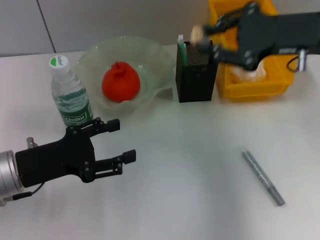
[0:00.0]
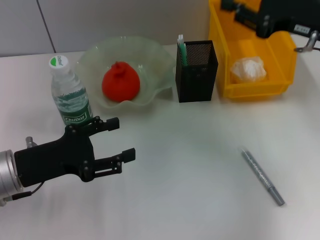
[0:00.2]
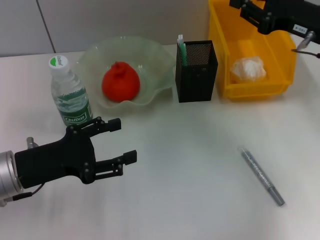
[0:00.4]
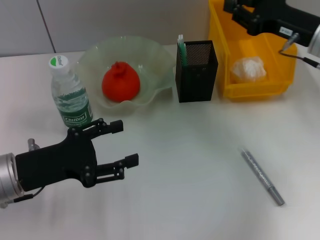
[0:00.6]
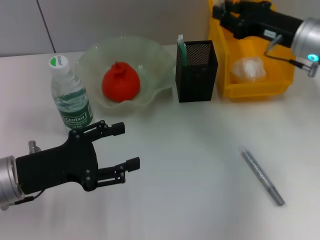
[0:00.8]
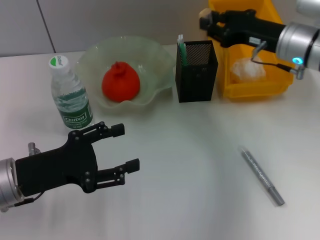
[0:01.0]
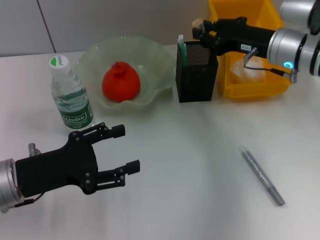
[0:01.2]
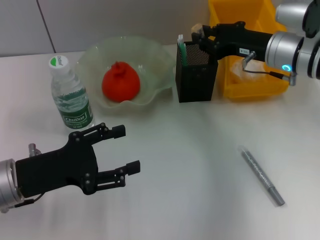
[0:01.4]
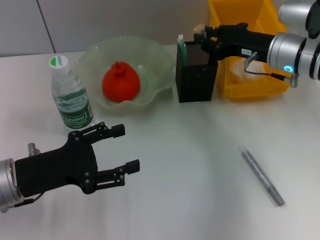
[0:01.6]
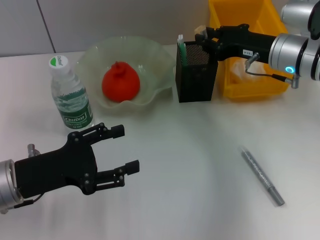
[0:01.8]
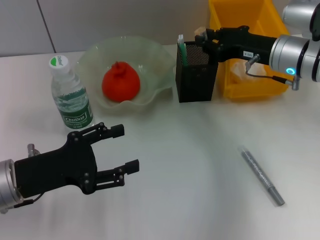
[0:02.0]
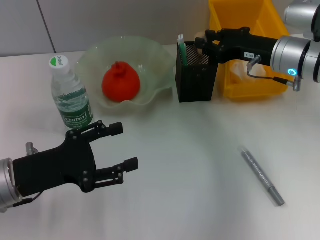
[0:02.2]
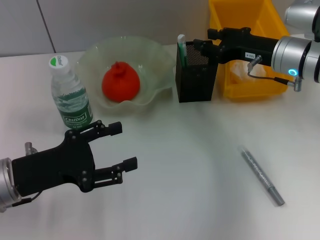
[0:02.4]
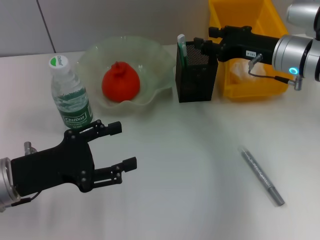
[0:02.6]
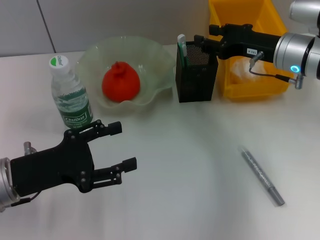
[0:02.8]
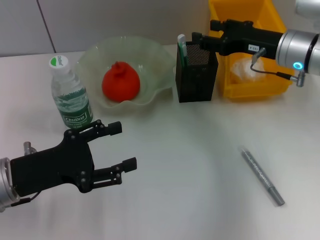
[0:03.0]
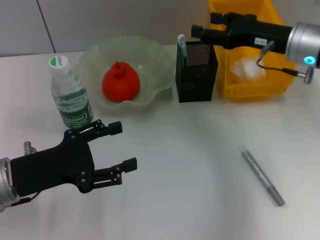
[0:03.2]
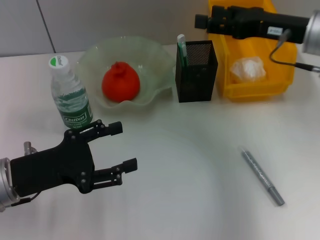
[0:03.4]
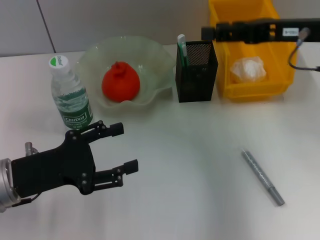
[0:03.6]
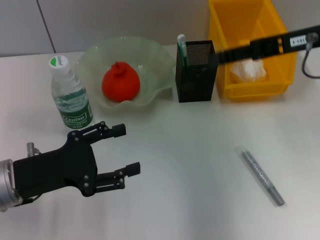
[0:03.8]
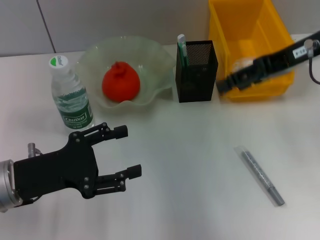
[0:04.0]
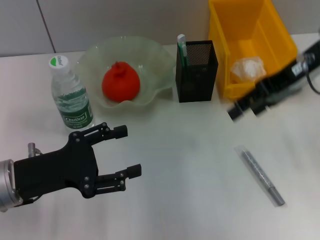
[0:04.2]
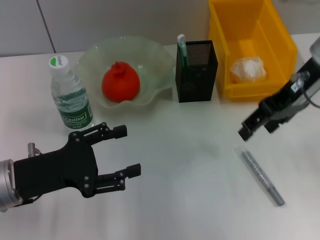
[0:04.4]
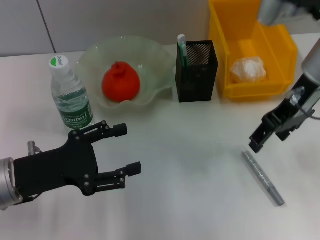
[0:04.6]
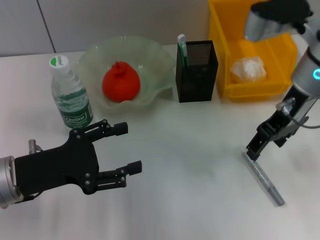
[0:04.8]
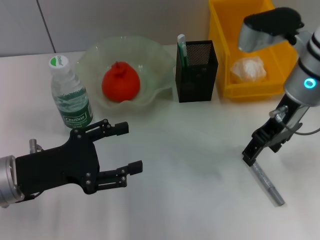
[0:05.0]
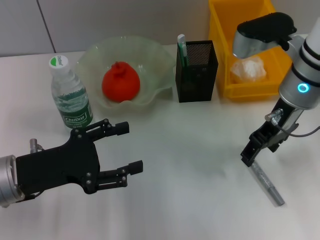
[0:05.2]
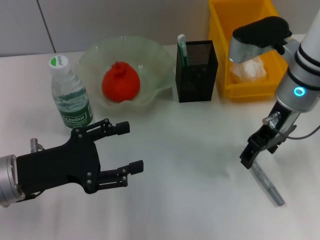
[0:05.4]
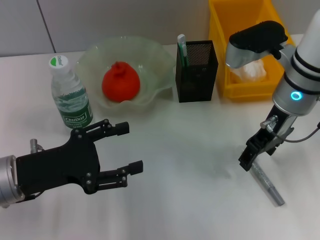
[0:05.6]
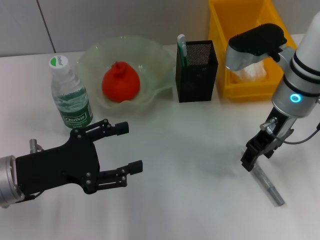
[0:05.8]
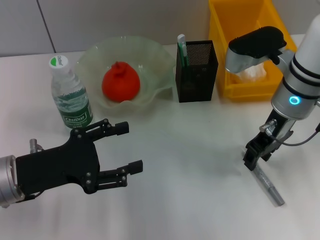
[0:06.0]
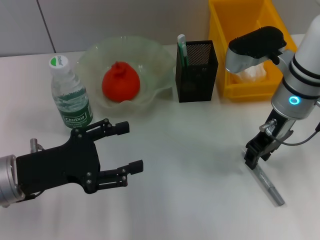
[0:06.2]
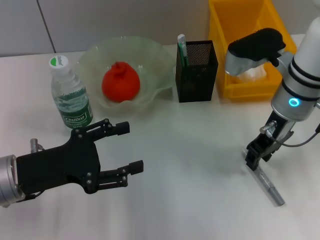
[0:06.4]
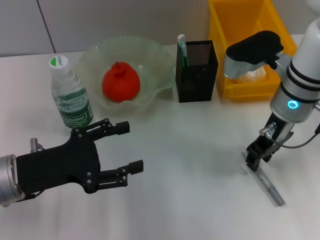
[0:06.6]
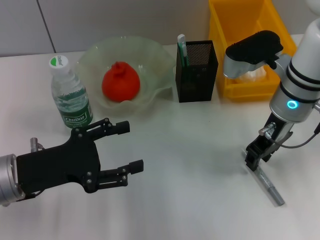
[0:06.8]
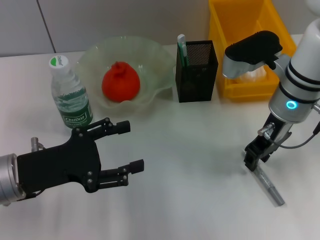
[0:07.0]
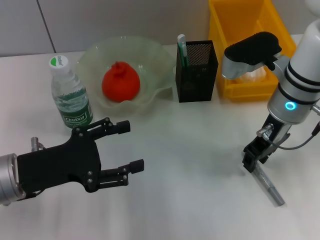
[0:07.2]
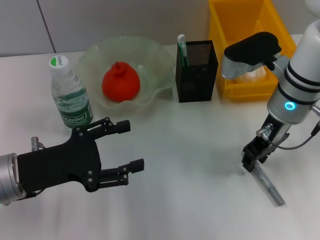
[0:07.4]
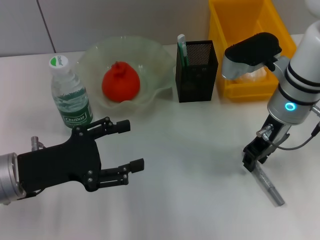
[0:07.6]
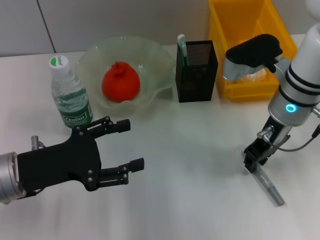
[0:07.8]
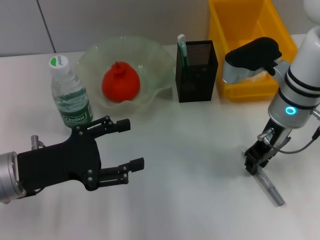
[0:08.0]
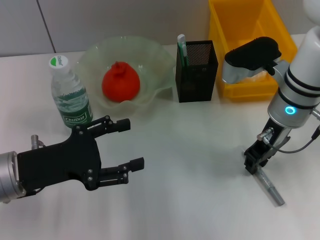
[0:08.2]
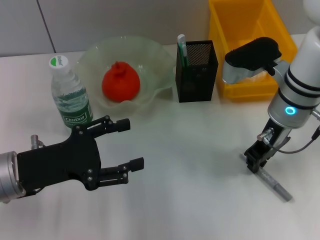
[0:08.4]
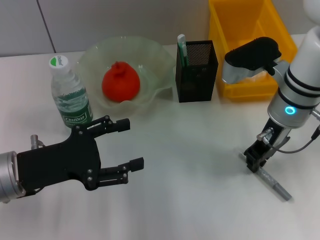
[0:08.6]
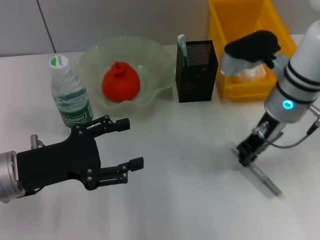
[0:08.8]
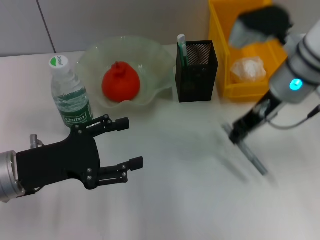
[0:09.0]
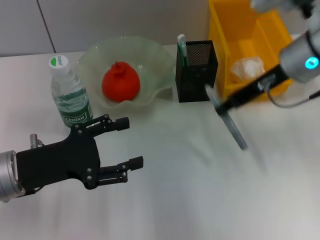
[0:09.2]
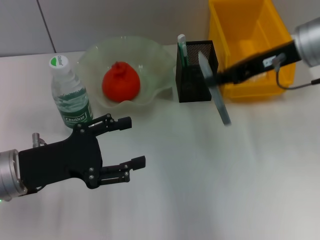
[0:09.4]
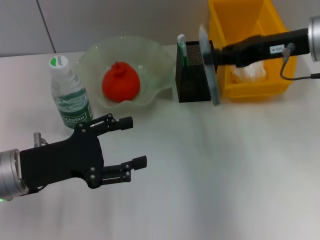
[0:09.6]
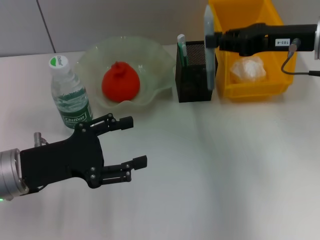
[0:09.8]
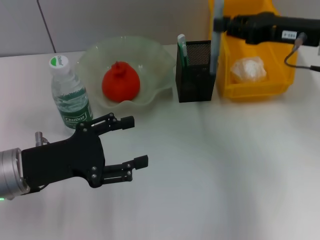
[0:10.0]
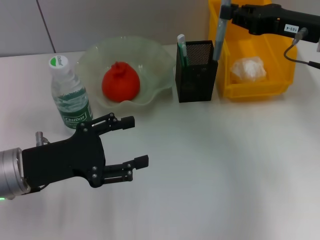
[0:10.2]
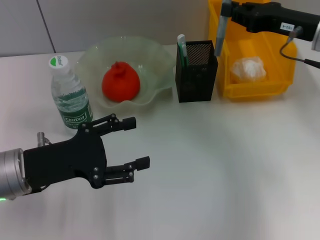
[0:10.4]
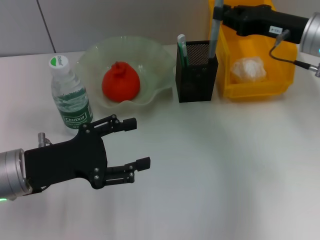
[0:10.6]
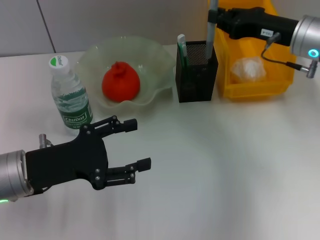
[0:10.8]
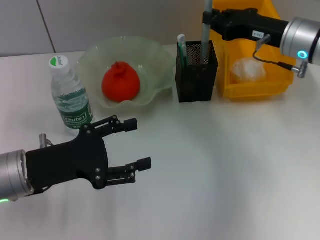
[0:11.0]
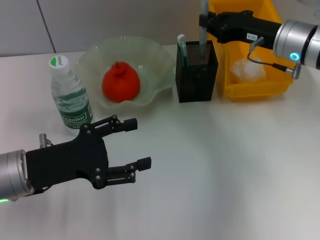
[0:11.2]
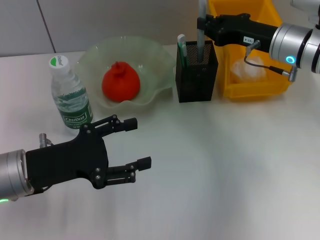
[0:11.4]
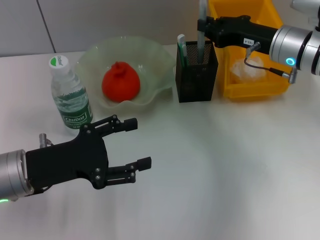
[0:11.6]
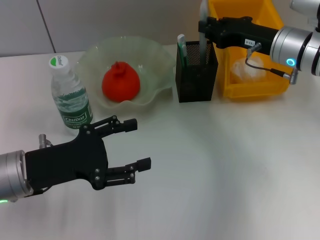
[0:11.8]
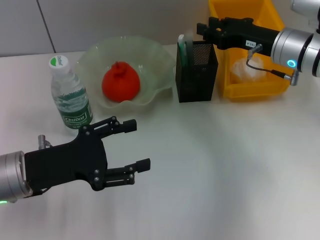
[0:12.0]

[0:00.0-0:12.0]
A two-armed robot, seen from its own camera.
Step, 0:00.0 to 0:02.8: Put the eraser into the pen holder with the right hand.
Step, 0:03.0 to 0:08.4: Grab the gray glue with the right hand.
0:00.0 to 0:01.6: The right gripper heads downward and forward, covering approximately 10 cm.
0:01.6 to 0:03.0: The right gripper opens its fingers.
0:03.0 to 0:04.4: The right gripper is displaced upward by roughly 10 cm.
0:04.4 to 0:06.0: The right gripper shifts approximately 10 cm downward.
0:06.0 to 0:07.6: The right gripper closes.
0:07.6 to 0:09.0: There are only small adjustments of the grippers.
0:09.0 to 0:10.4: The right gripper travels to the right by about 10 cm.
0:10.4 to 0:12.0: The right gripper moves some 5 cm.

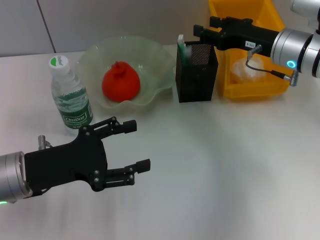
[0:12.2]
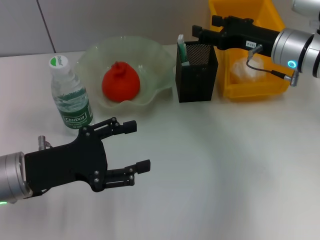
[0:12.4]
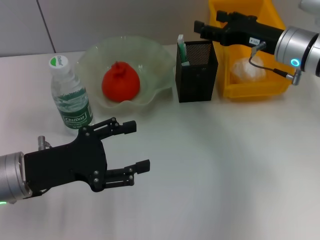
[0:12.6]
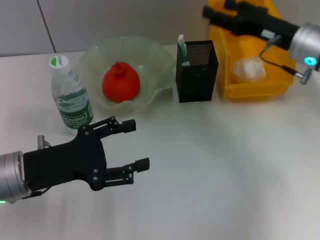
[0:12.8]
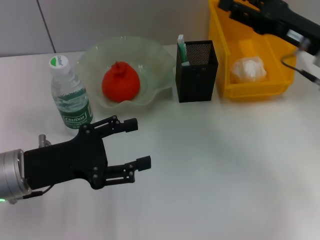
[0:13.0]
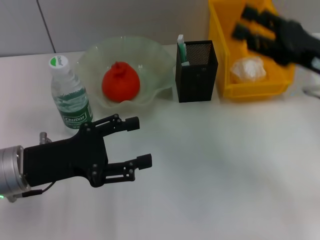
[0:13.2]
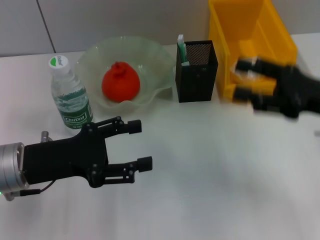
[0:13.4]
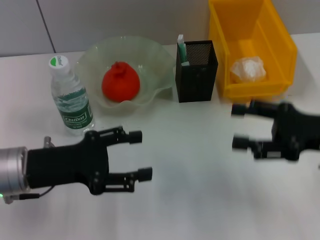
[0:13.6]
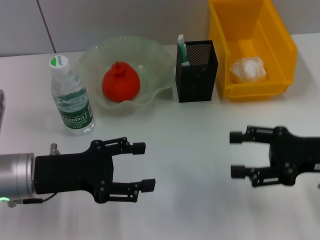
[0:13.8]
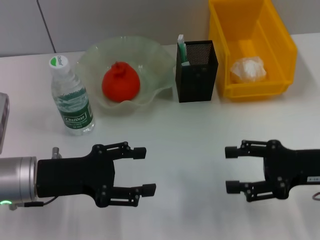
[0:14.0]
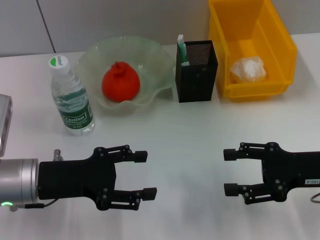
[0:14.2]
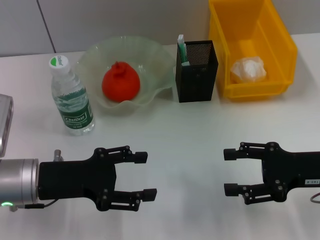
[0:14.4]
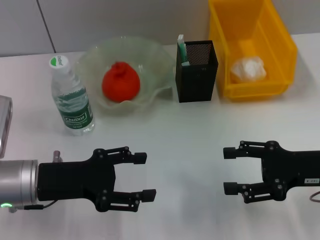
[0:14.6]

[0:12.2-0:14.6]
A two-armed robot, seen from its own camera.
0:12.2 to 0:13.4: The right gripper moves backward and to the right, some 15 cm, and opens up.
0:13.4 to 0:14.6: The right gripper ends up roughly 5 cm from where it was.
